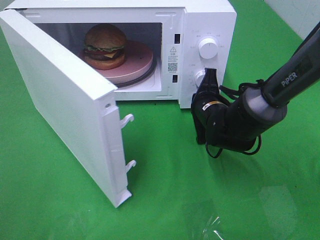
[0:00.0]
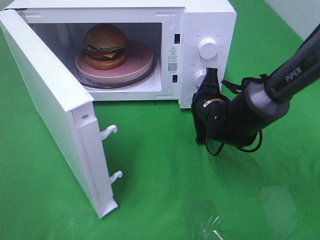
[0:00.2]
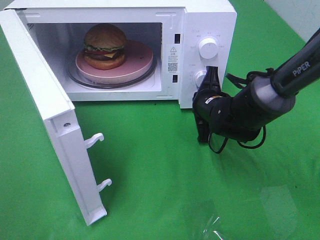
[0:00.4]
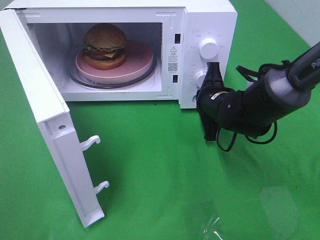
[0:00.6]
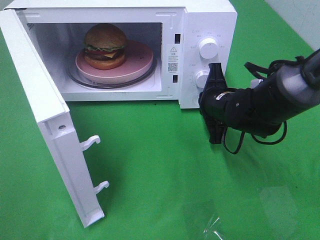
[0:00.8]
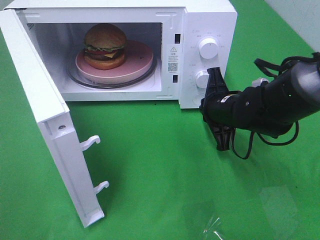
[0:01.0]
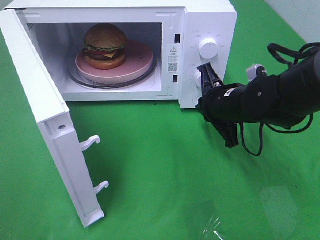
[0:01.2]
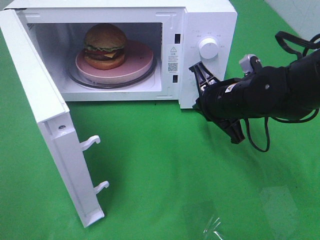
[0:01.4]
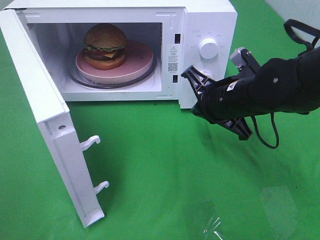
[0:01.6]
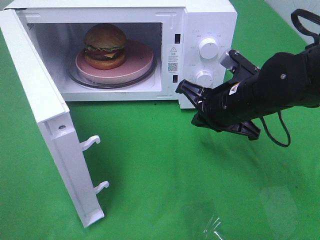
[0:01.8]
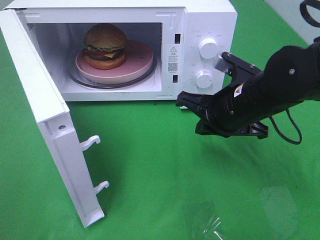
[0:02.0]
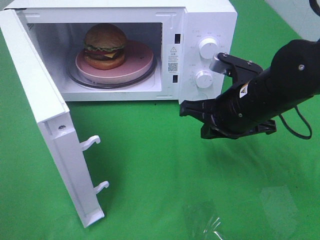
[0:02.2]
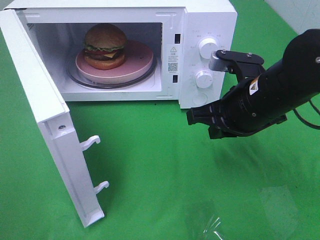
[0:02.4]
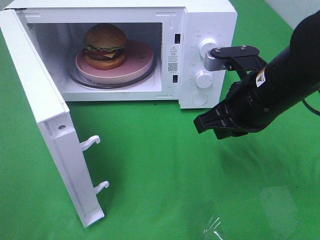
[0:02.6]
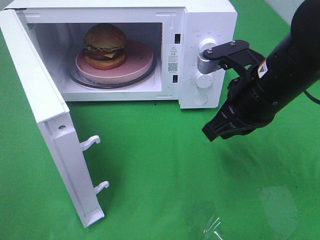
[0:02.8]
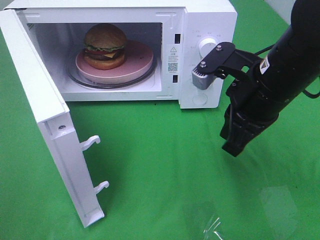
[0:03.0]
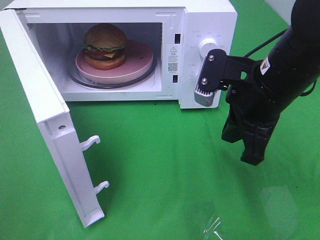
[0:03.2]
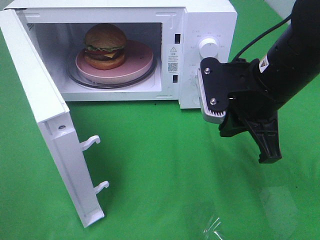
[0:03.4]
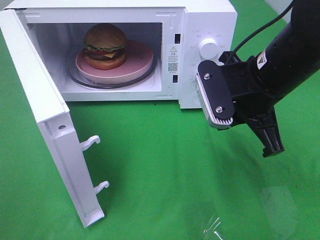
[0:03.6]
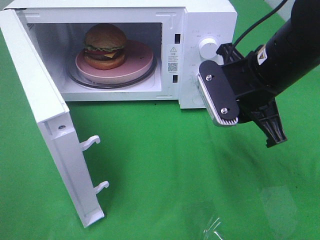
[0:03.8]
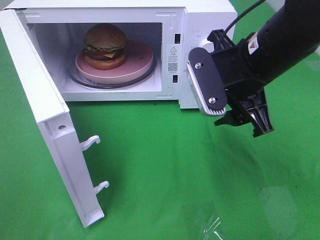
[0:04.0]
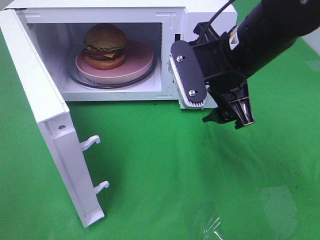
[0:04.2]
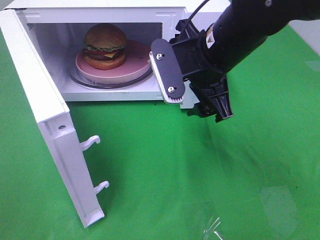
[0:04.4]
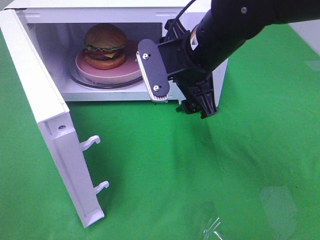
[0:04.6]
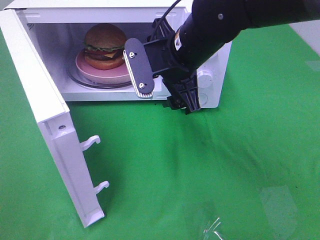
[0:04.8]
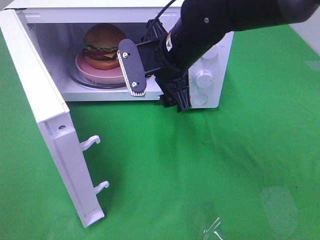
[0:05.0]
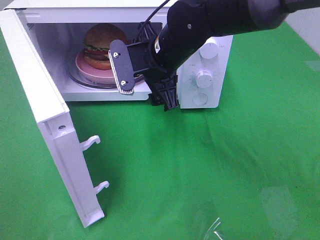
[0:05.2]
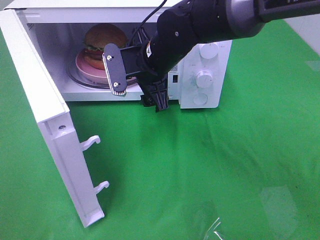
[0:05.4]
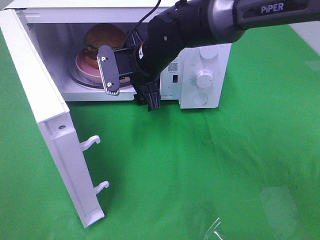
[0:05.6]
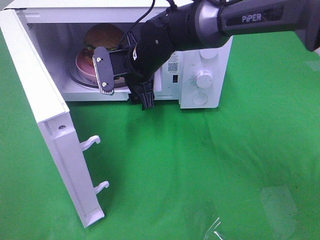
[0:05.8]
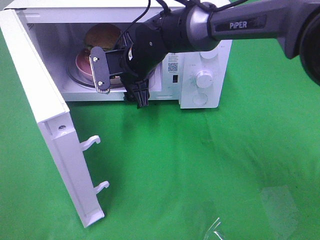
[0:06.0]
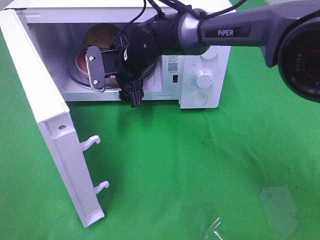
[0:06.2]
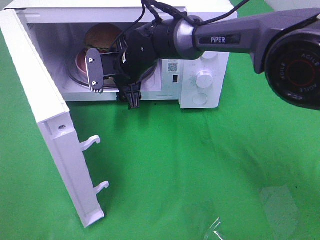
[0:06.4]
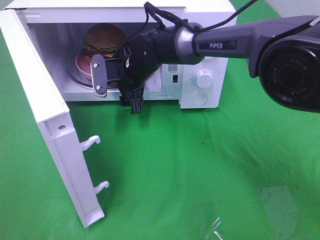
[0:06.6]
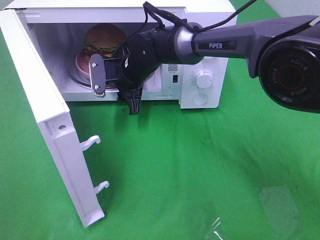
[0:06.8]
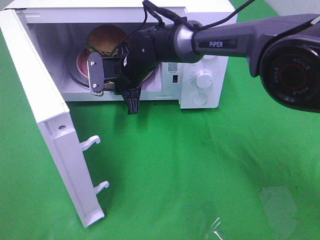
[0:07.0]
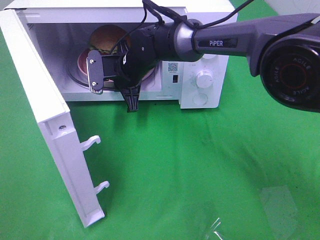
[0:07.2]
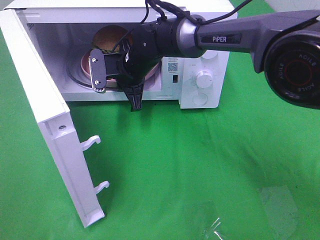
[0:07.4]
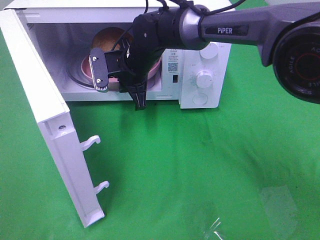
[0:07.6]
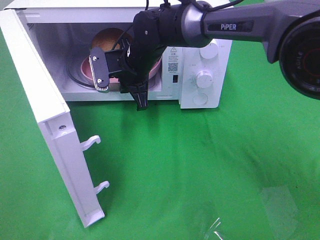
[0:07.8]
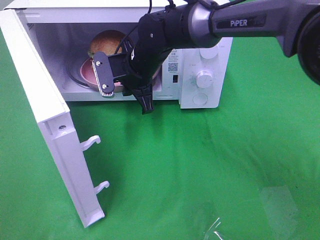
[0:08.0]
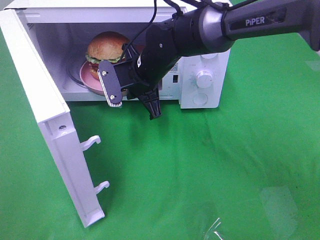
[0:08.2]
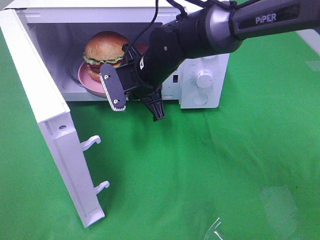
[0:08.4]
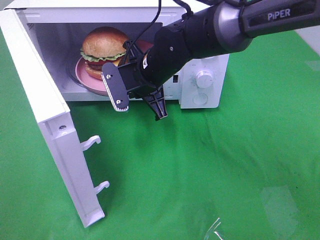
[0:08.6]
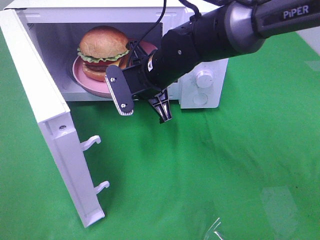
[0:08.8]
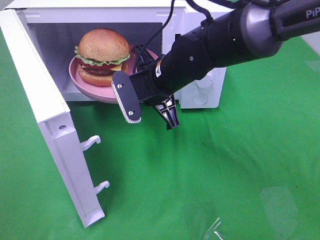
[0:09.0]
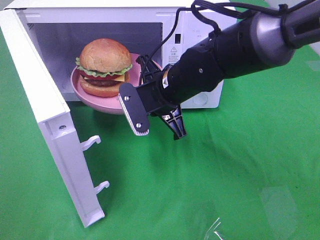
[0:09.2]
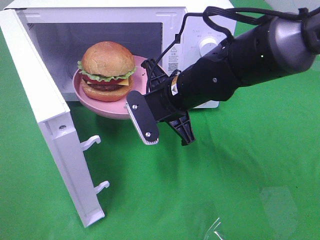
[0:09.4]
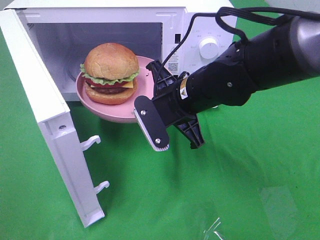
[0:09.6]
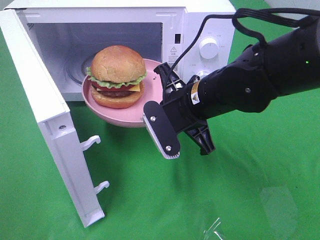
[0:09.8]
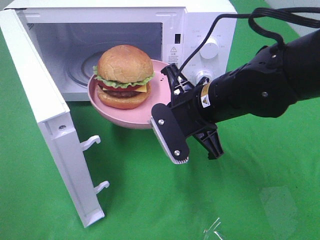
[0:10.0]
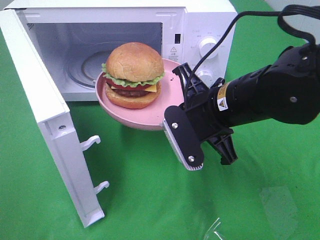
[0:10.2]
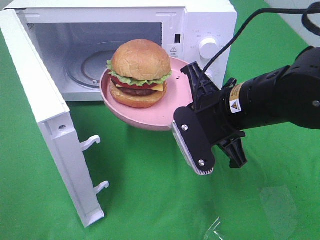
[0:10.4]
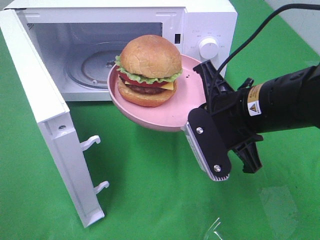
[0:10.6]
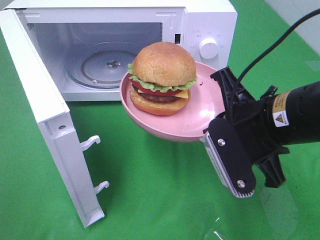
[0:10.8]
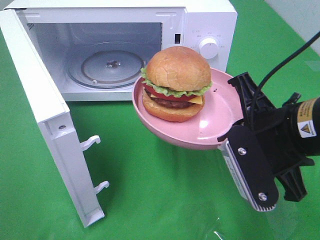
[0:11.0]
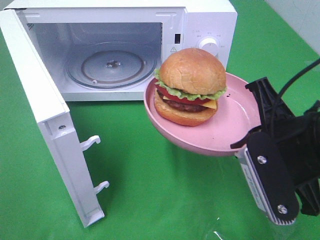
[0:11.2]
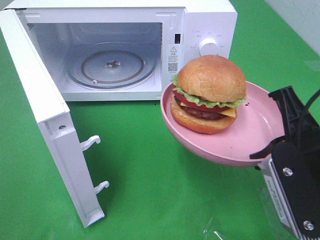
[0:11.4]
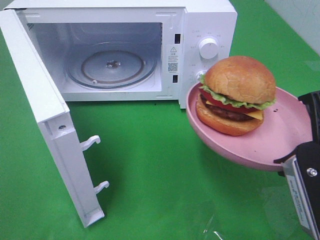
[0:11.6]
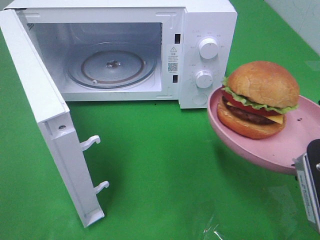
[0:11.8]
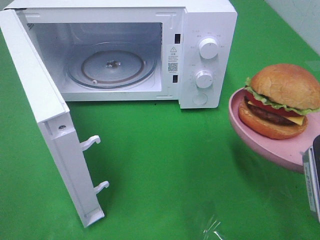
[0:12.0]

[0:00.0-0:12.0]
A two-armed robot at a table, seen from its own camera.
Task of the whole recording: Heat the burger.
Step, 0:01.2 to 0:07.2: Right hand: grab the plate with the hamburger.
0:00.0 to 0:01.6: The right gripper travels upward and backward by roughly 10 cm.
0:01.6 to 0:03.0: The right gripper heads upward, covering approximately 5 cm.
0:03.0 to 0:04.4: The right gripper shifts approximately 5 cm to the left, and opens.
0:04.4 to 0:06.0: The right gripper heads forward, to the left and downward, covering roughly 20 cm.
0:06.0 to 0:07.6: The right gripper closes up.
0:07.6 to 0:09.0: The right gripper moves backward and to the right, some 10 cm.
0:09.0 to 0:10.4: The right gripper is displaced backward and to the right by roughly 15 cm.
0:10.4 to 0:12.0: The right gripper shifts some 15 cm to the right and backward.

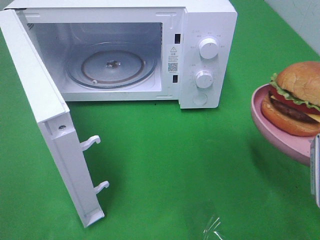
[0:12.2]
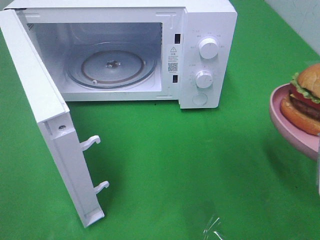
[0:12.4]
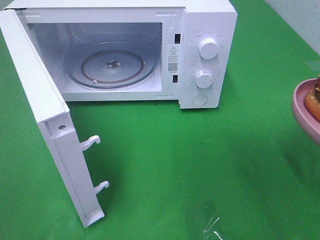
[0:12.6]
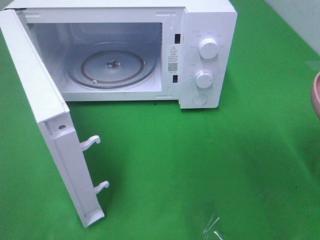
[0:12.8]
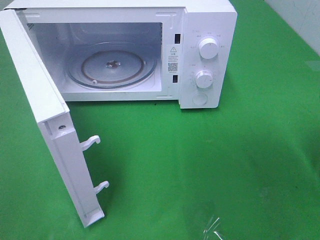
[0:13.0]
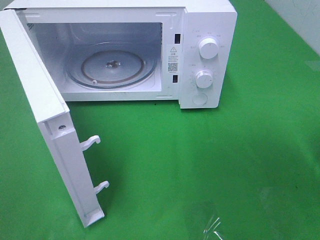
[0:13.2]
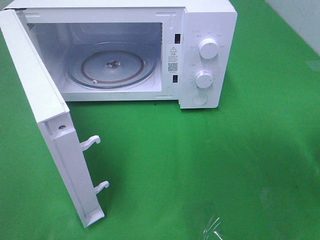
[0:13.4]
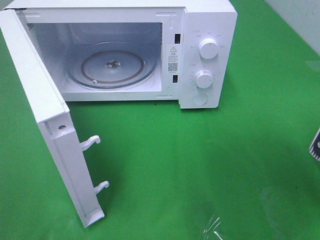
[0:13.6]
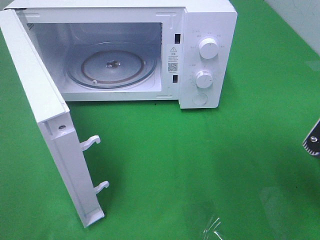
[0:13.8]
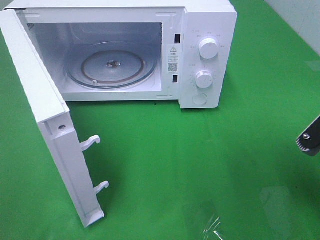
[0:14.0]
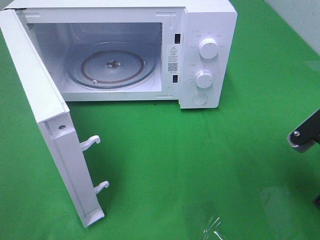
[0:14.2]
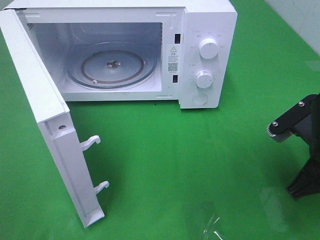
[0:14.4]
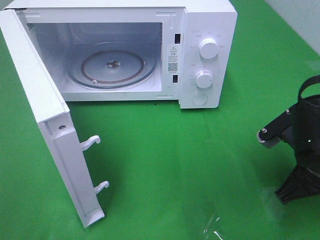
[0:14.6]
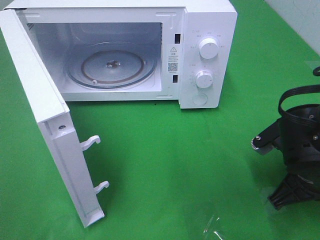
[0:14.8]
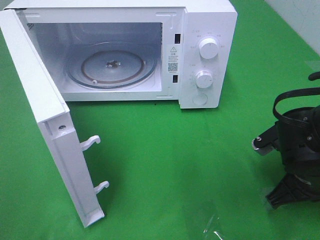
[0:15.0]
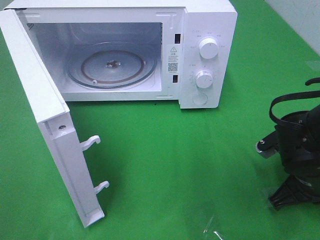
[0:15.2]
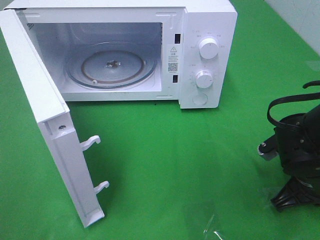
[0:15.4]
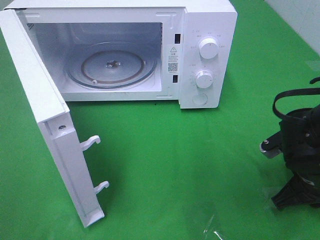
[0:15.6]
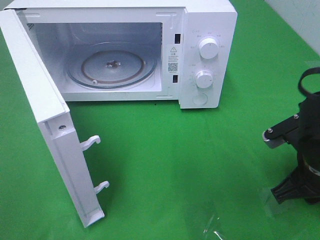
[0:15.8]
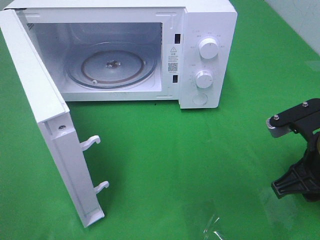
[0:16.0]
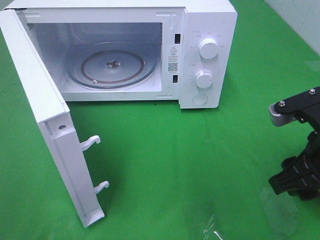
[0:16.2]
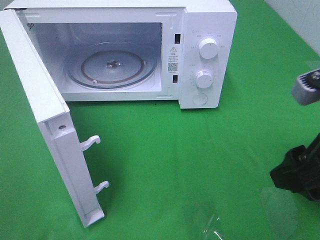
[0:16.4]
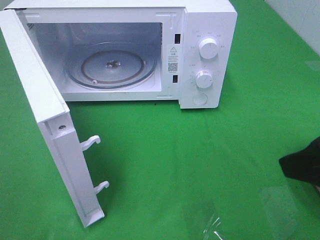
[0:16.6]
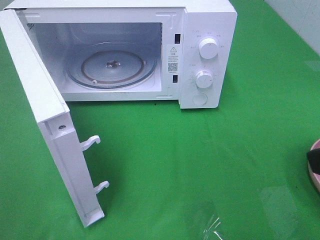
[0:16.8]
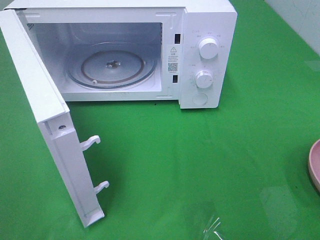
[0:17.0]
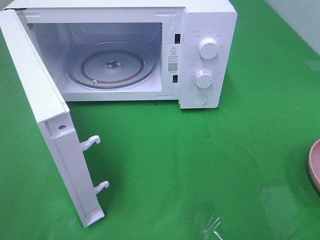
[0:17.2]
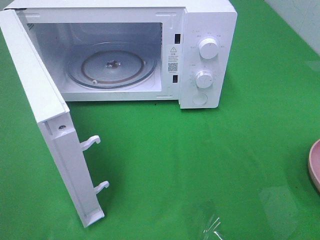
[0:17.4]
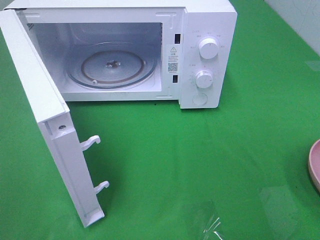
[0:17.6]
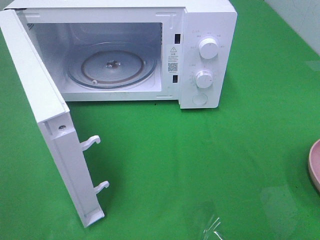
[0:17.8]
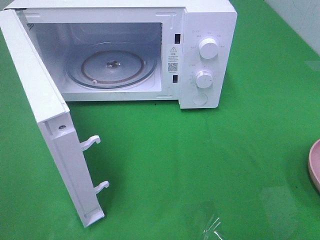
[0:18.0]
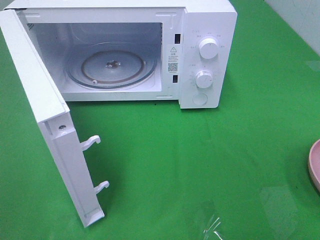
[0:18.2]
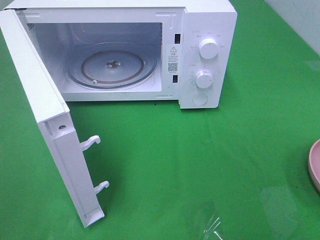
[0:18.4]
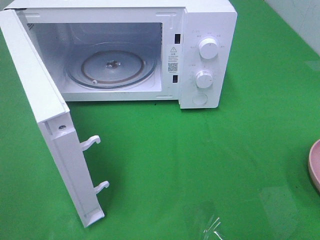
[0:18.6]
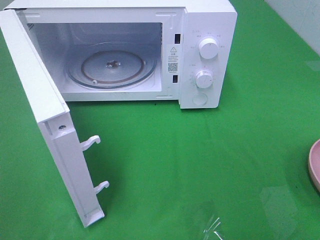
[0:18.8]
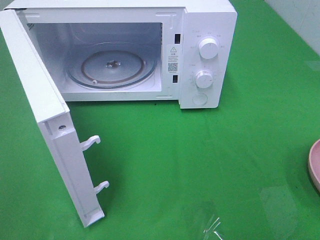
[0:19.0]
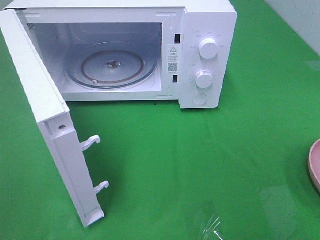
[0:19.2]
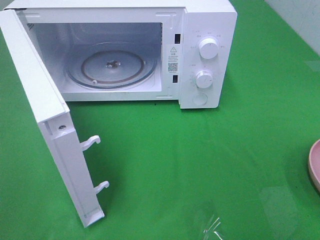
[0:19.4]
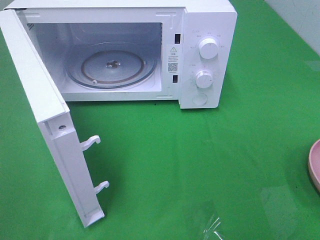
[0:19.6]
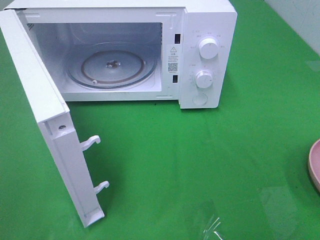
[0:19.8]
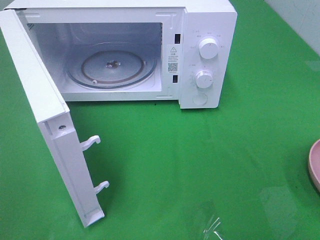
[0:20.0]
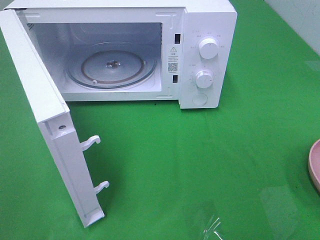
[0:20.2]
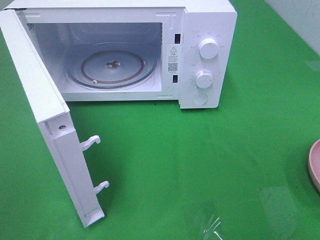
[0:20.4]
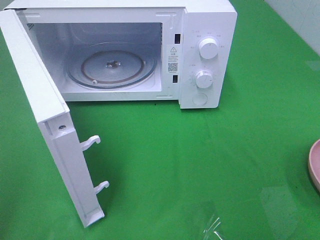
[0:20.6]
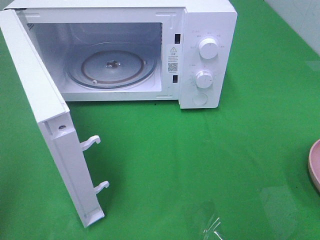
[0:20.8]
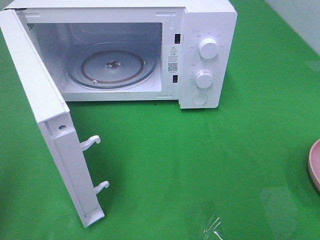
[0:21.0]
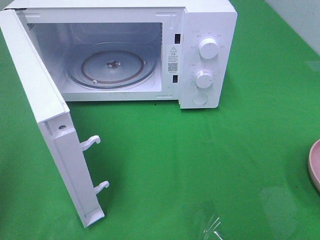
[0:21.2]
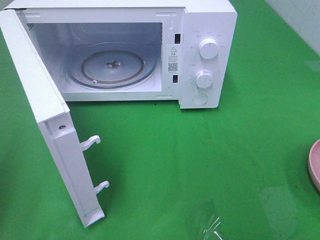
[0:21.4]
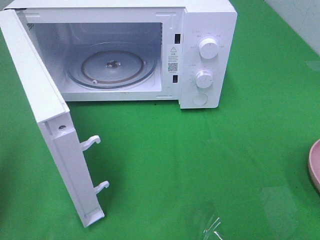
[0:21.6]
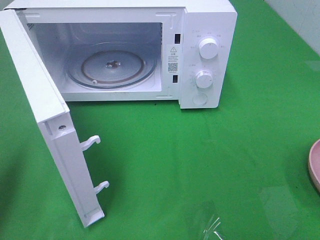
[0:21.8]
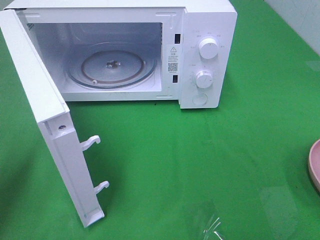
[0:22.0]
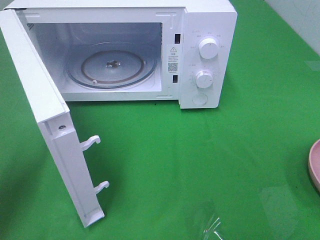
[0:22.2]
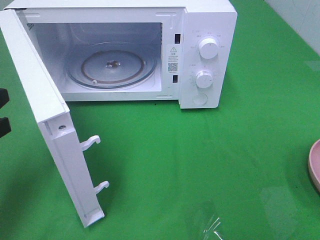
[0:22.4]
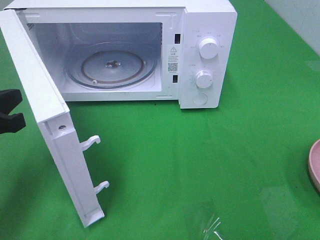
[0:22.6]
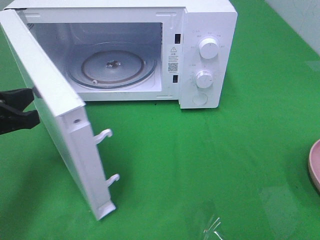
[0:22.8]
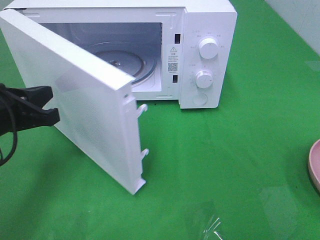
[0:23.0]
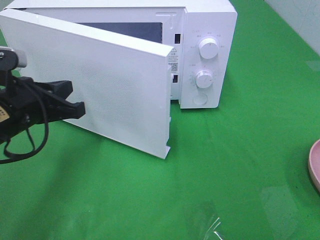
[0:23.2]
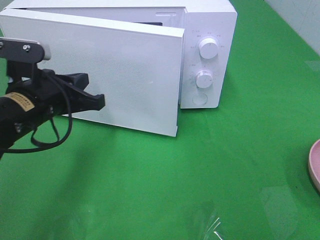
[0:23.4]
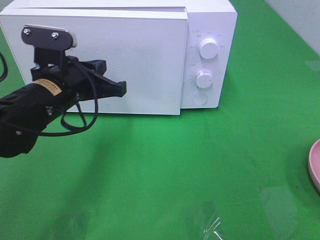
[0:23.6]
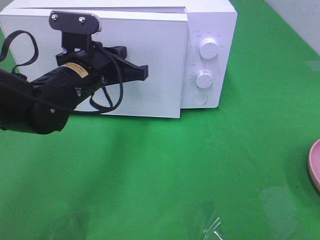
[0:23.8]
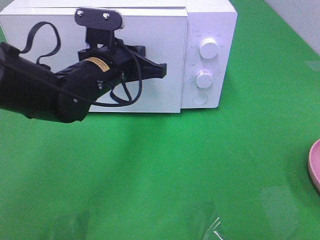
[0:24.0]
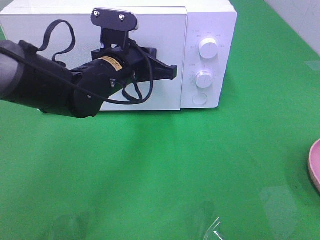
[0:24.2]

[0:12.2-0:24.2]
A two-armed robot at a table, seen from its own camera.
Task of the whole recording: Heat the burger.
Step, 0:12.2 to 0:16.0: Right hand: place the plate on the table.
0:13.8 to 0:15.2: The right gripper heads downward and forward, covering approximately 10 cm.
0:15.2 to 0:16.6: The right gripper travels upward and backward by some 20 cm, and opens its fingers.
0:16.6 to 0:18.2: The right gripper moves backward and to the right, roughly 15 cm.
0:18.2 to 0:19.8: Both grippers stay about where they are.
0:21.2 to 0:22.6: The left gripper moves forward, downward and to the right, some 15 cm.
0:22.6 to 0:24.2: The left gripper shifts approximately 25 cm to the right and forward.
